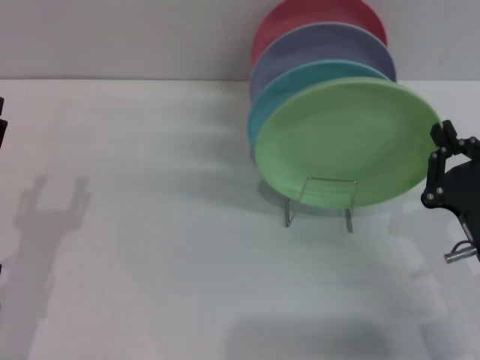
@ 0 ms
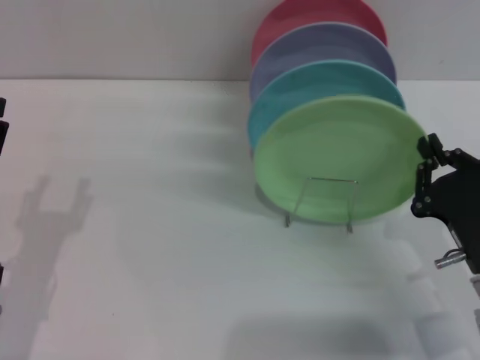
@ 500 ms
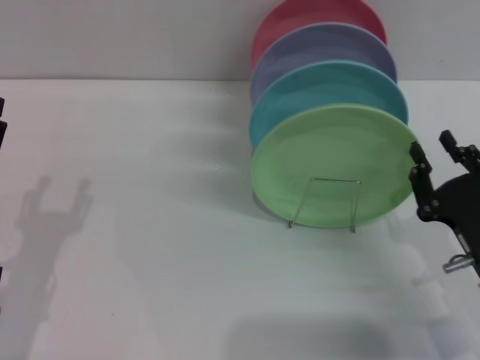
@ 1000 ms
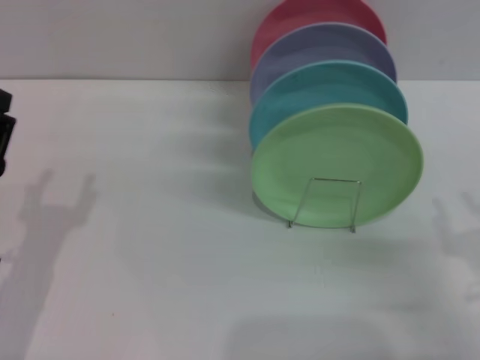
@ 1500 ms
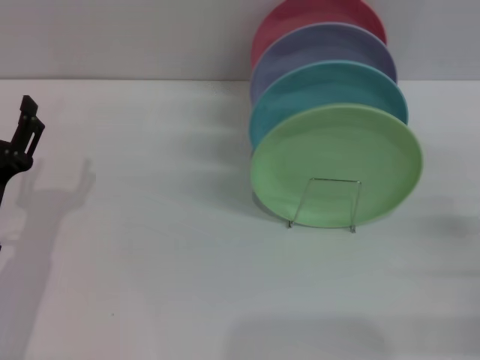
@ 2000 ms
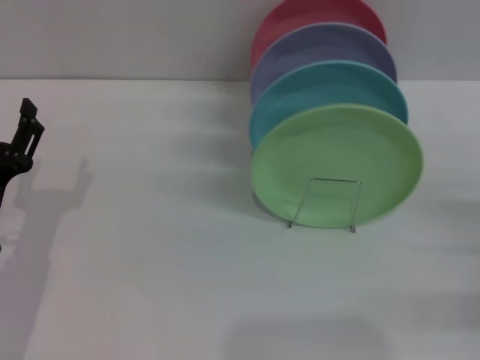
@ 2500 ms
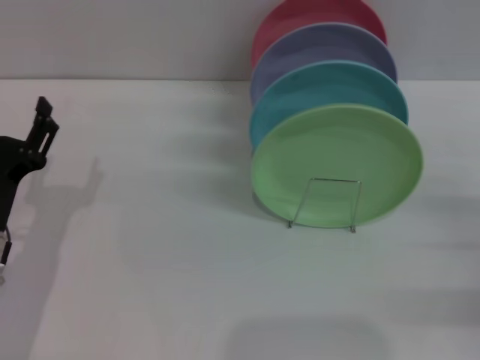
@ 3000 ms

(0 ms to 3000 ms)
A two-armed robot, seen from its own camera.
Task of the whole recording: Grip the plate with one hand, pass it to the other, then set it on the shelf.
0 ms - 1500 ms: The right gripper moves some 5 cm, and opens.
1500 ms - 3000 ms: The right gripper travels to the right and forward by some 10 cm.
